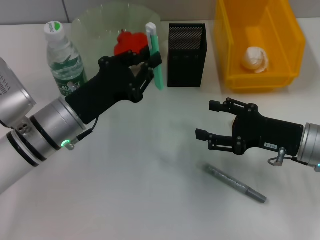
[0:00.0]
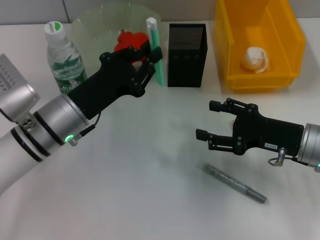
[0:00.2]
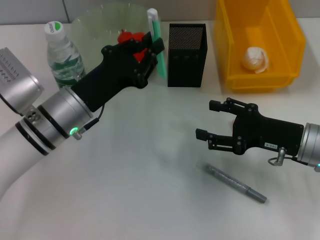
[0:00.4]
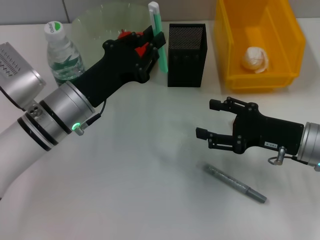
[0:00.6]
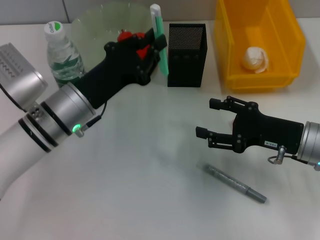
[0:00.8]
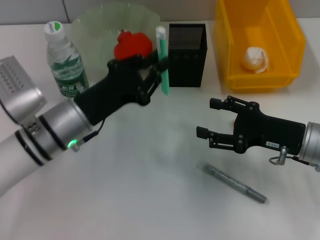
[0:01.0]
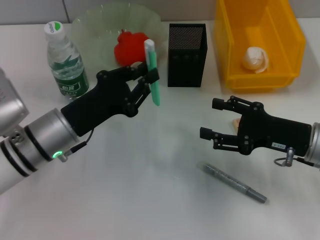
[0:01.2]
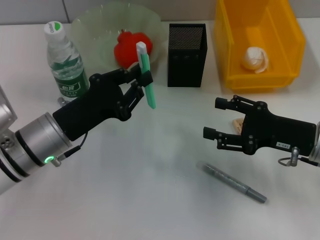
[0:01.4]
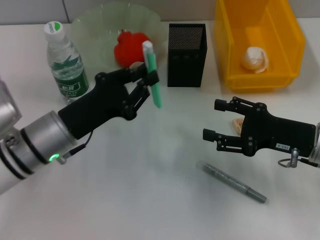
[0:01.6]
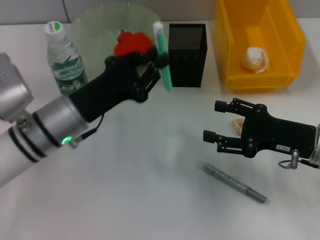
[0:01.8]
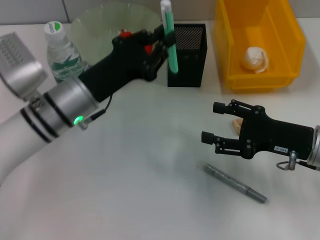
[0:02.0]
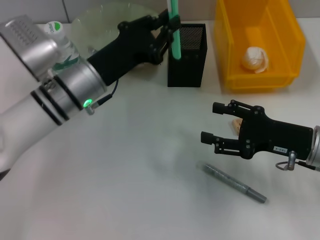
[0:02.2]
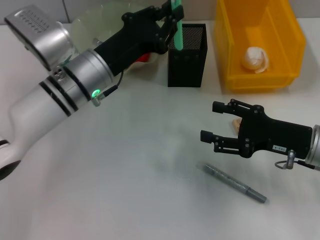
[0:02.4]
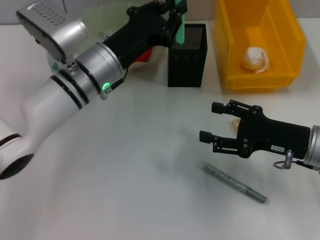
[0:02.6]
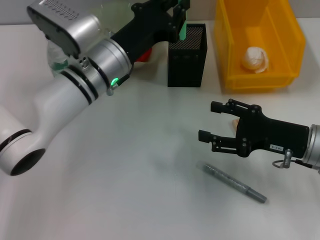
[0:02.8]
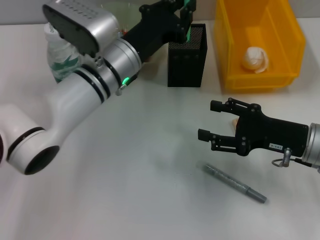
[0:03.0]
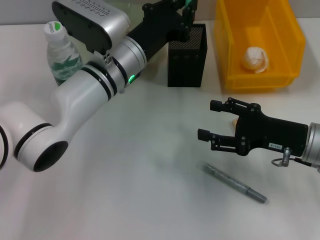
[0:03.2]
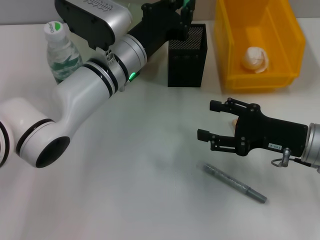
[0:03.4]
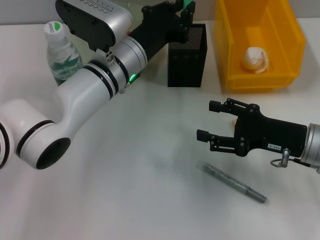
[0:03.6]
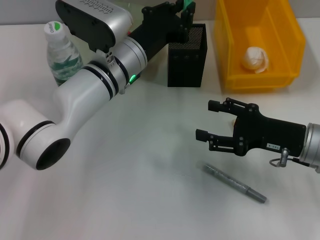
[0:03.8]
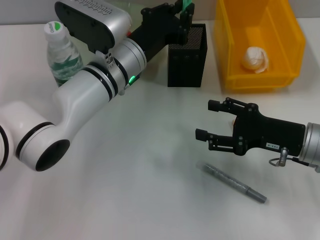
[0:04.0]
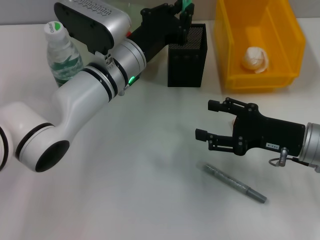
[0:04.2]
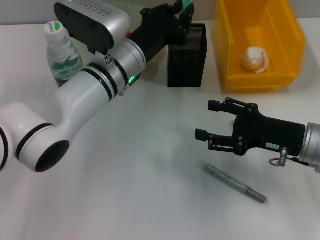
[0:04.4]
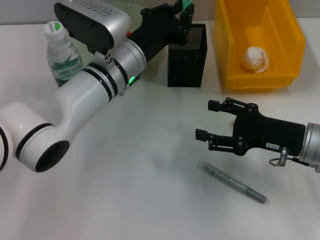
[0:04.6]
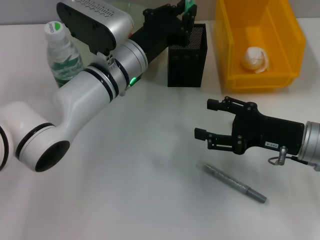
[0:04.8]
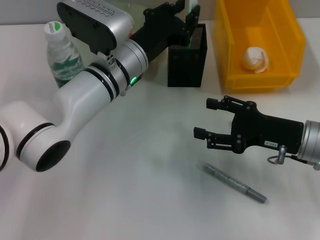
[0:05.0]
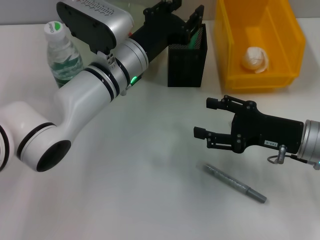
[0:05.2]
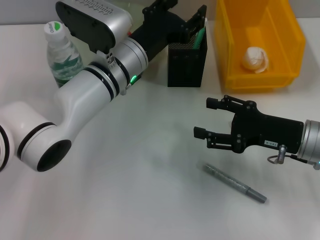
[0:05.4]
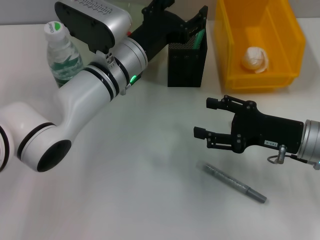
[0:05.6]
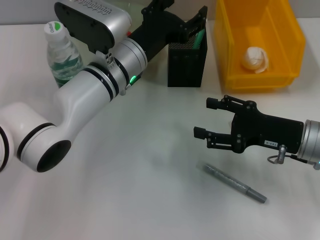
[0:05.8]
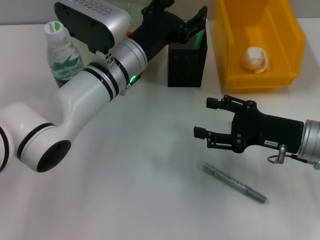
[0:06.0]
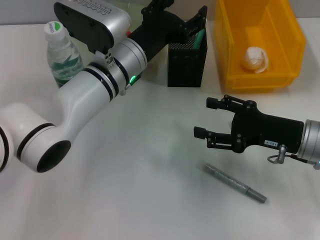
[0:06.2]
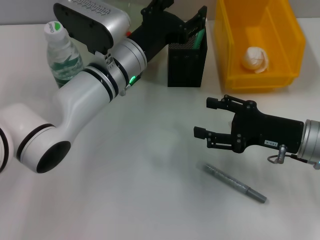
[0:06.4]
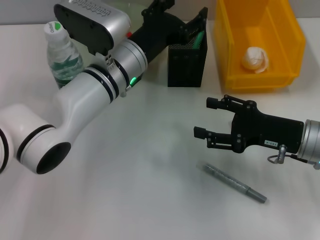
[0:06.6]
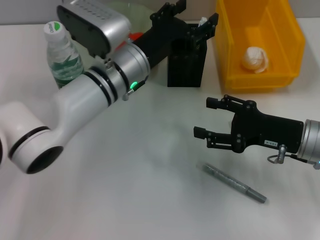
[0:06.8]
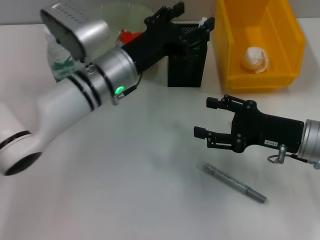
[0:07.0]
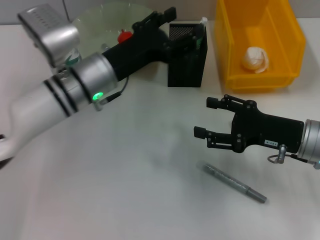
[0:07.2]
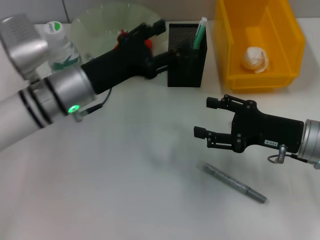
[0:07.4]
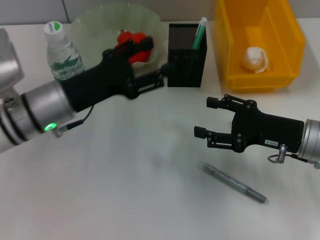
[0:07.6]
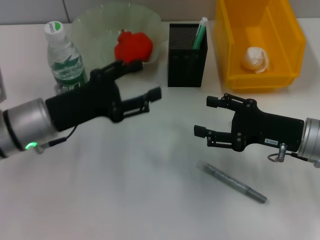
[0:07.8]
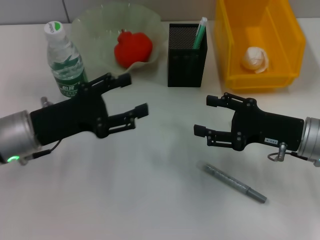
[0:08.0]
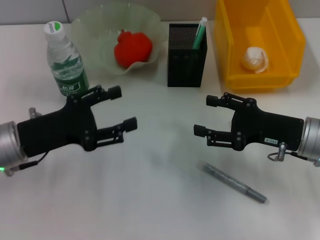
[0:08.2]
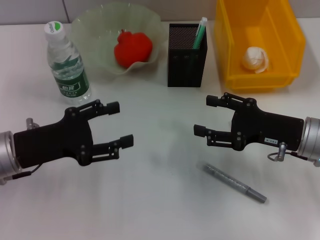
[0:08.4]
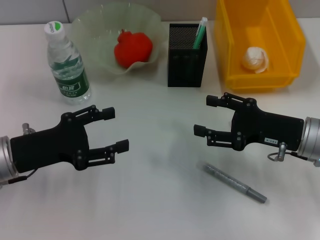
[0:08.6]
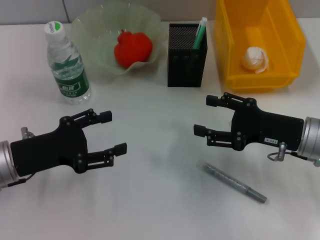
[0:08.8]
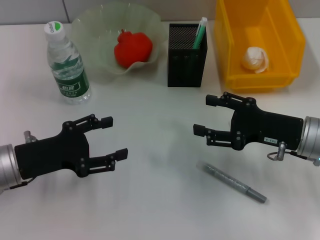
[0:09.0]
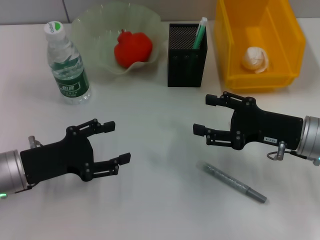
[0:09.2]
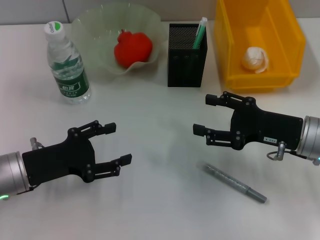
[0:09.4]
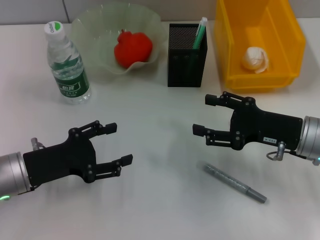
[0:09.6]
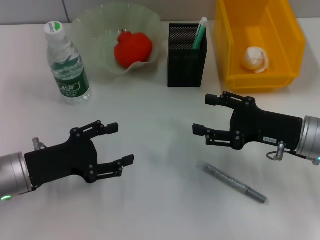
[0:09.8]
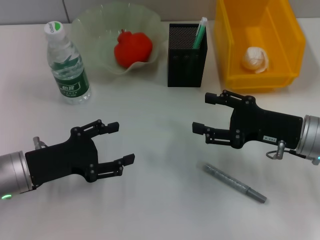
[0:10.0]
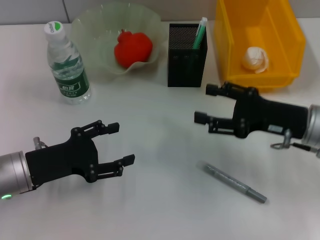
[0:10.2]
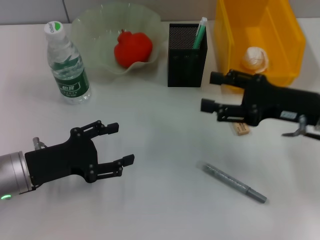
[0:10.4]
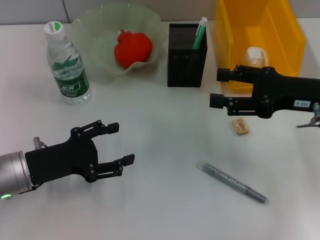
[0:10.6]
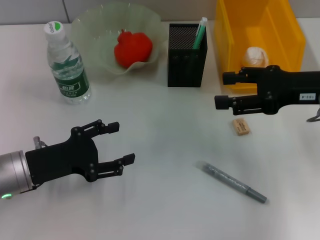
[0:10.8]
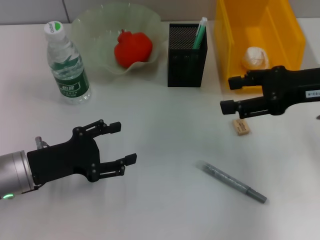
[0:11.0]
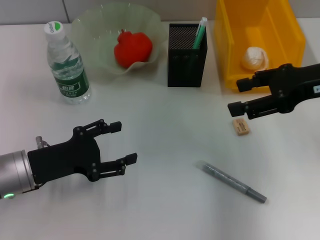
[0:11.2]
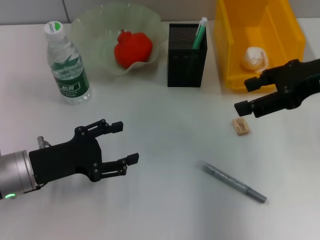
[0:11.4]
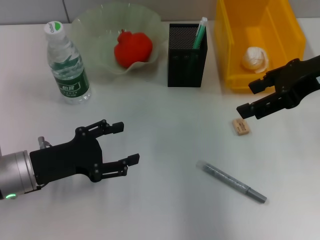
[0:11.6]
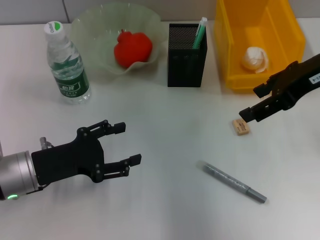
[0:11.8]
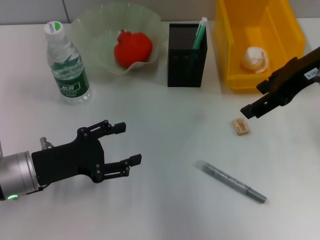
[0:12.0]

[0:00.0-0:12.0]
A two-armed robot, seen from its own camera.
Step, 0:00.0 to 0:07.0: Place the blue utility knife into the pen holder with the left hand.
0:00.0 to 0:01.6: The grippers make only small movements.
0:01.6 to 0:03.0: The left gripper goes approximately 10 cm forward and to the right.
0:03.0 to 0:04.4: There are only small adjustments of the grippers.
0:04.4 to 0:06.0: The left gripper opens up.
0:06.0 to 0:07.6: The left gripper moves to the left and backward, about 10 cm.
0:07.6 to 0:09.0: The left gripper travels to the left and backward by some 10 cm.
0:09.0 to 0:10.4: The right gripper heads upward, covering approximately 5 cm.
0:10.4 to 0:12.0: The right gripper goes roughly 10 cm upward.

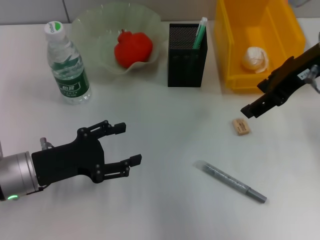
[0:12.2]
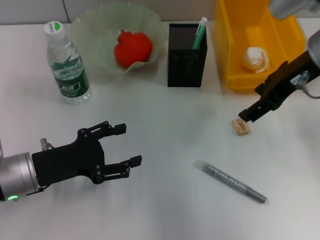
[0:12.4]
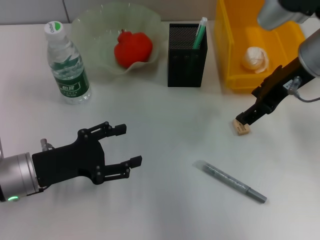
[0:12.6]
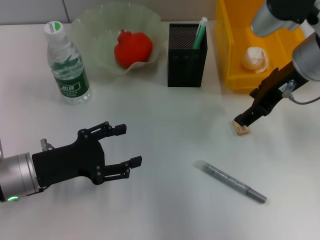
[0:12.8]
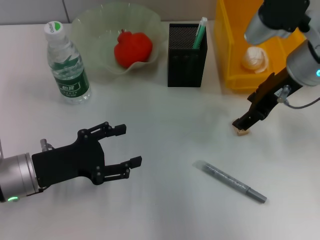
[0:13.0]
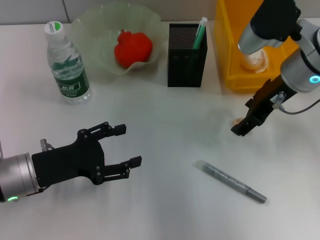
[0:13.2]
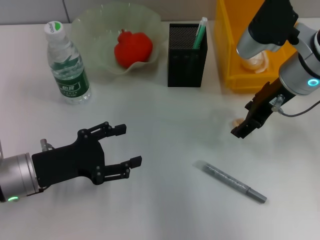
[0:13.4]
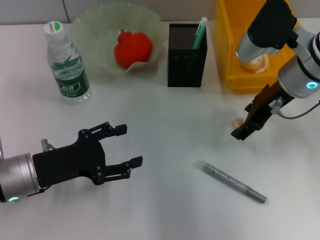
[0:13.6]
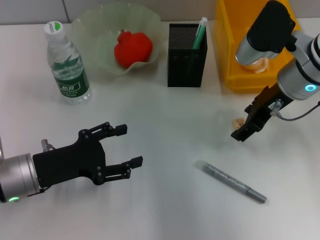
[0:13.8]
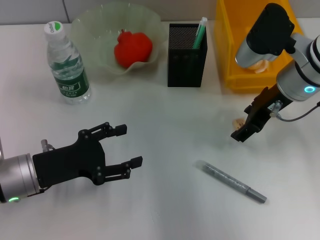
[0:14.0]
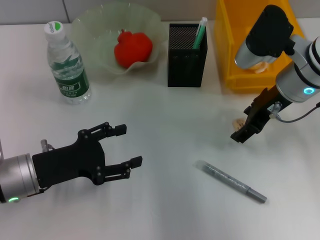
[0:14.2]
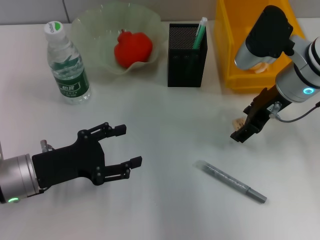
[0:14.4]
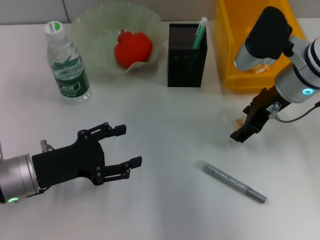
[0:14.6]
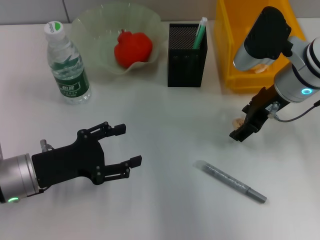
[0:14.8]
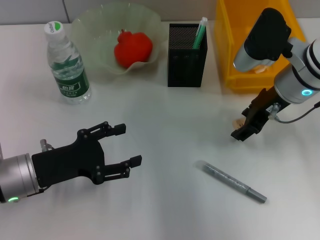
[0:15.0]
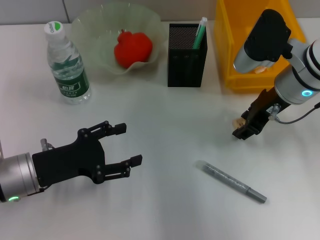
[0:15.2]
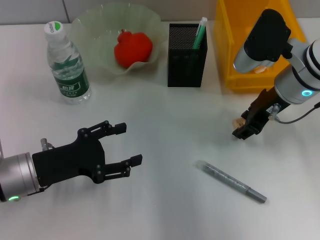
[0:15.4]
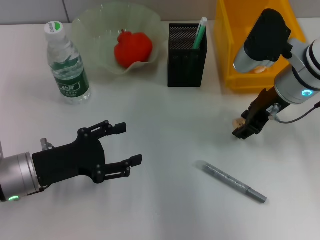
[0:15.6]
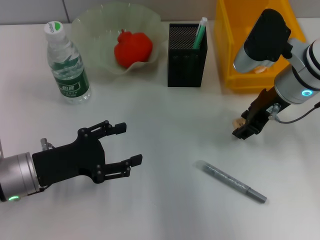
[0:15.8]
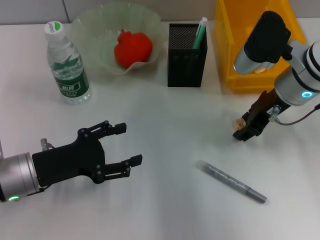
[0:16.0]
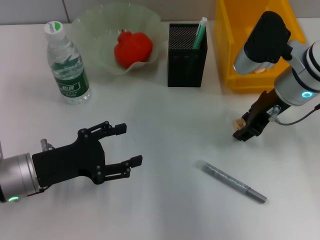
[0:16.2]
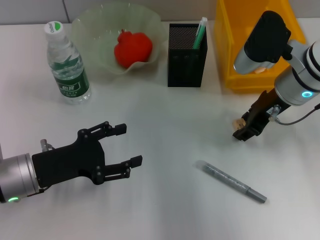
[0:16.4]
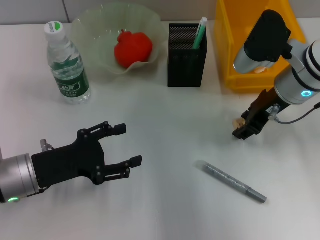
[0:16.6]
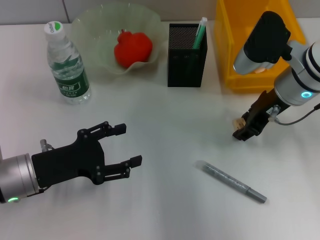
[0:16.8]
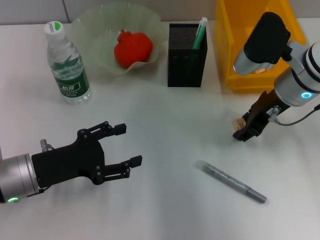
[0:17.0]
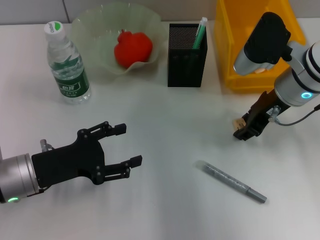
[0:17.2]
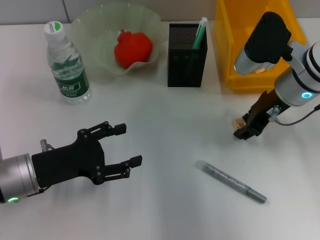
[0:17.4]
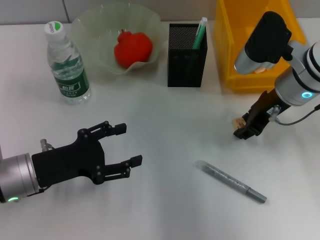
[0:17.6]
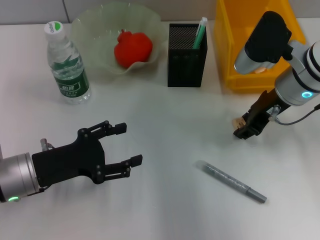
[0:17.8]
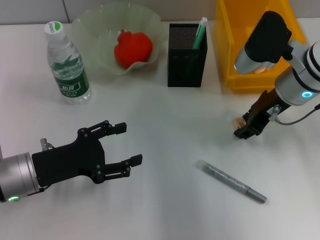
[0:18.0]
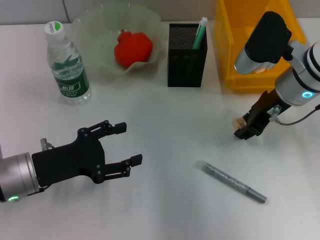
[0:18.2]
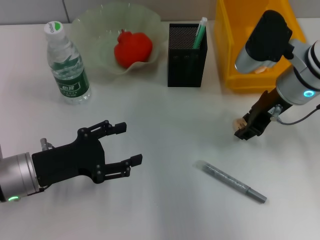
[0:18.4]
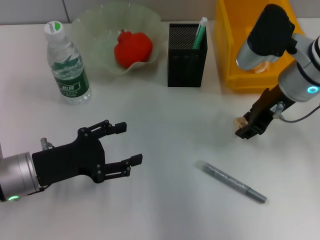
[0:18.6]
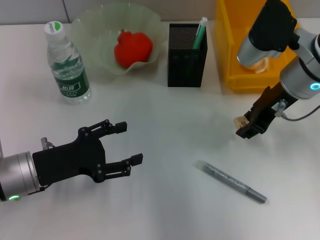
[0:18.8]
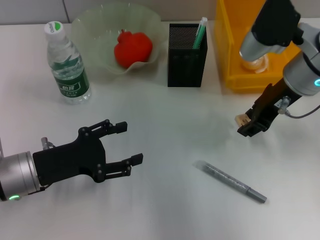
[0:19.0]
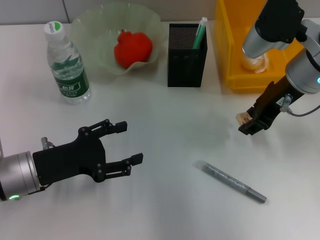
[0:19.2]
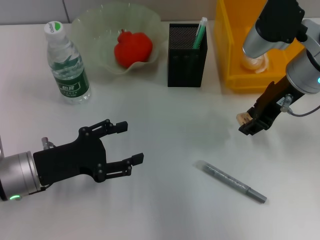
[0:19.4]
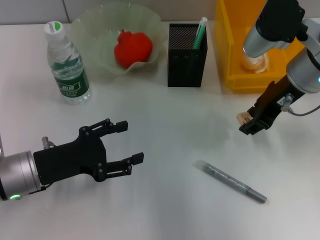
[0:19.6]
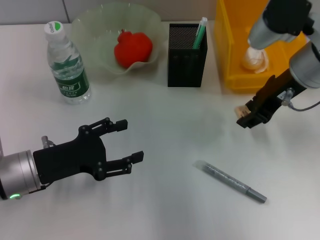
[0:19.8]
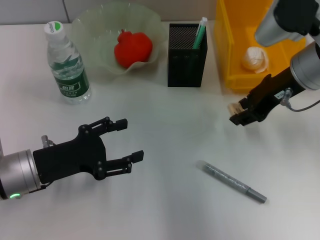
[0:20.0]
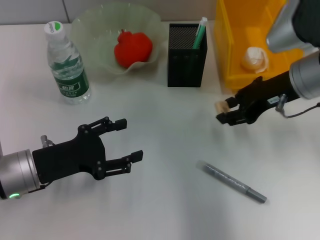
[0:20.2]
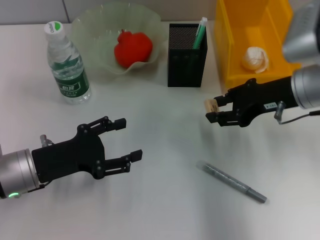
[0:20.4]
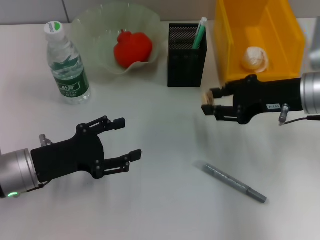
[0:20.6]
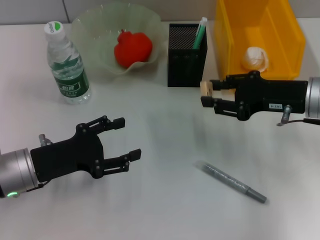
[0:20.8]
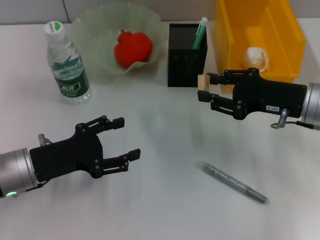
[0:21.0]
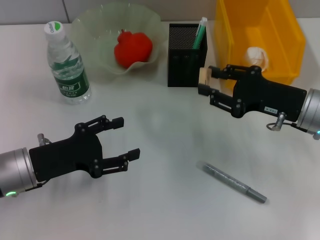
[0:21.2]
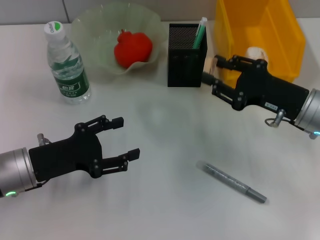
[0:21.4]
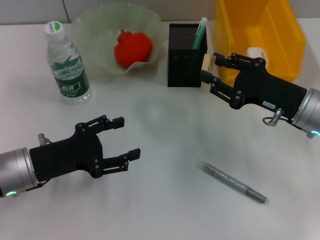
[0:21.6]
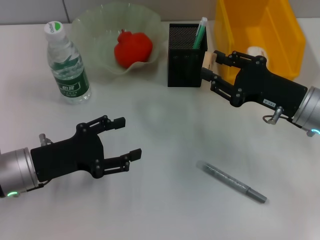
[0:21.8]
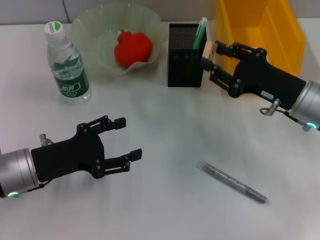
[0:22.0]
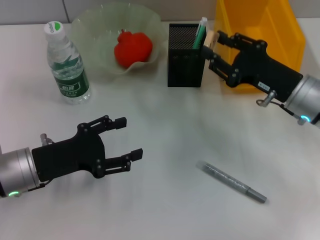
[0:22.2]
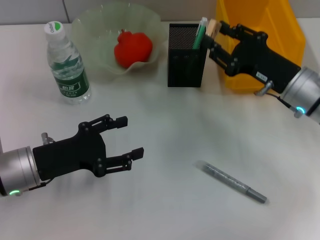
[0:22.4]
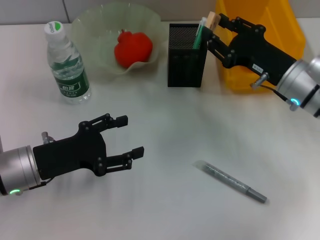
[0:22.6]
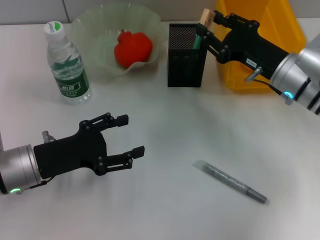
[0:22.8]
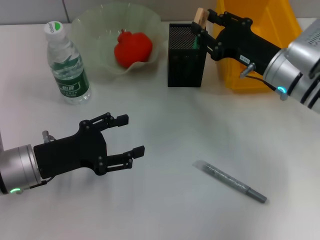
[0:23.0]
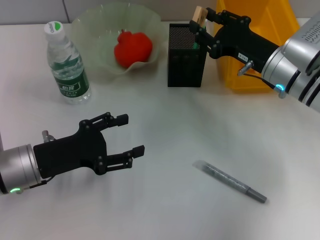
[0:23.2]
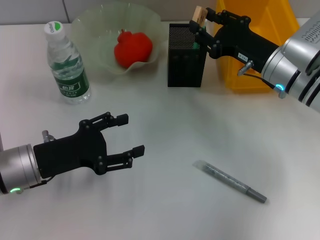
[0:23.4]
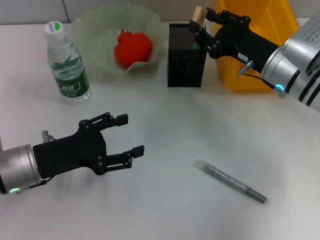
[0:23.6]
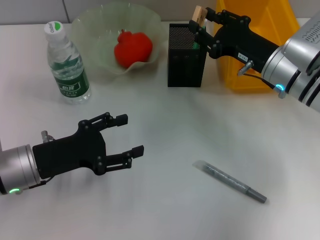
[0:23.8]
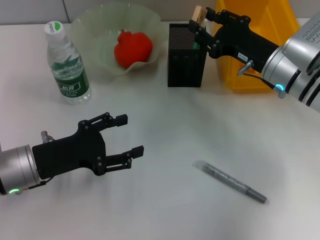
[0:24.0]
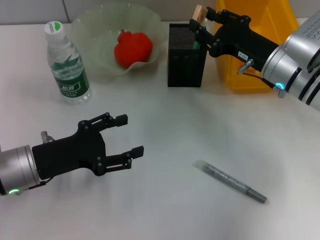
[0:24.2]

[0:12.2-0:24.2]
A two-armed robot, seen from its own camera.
Step, 0:12.2 to 0:18.2: Grab the eraser with the right hand.
0:12.2 to 0:13.8: The right gripper goes about 10 cm downward.
0:13.8 to 0:16.6: Both grippers stay about where they are.
0:16.6 to 0:18.2: The two grippers keep their place.
0:18.2 to 0:19.8: The right gripper ends up approximately 5 cm from where it was.
0:19.8 to 0:21.2: The right gripper moves downward and backward, approximately 10 cm.
0:21.2 to 0:22.6: There are only small adjustments of the grippers.
0:22.6 to 0:24.2: There are only small adjustments of the grippers.
